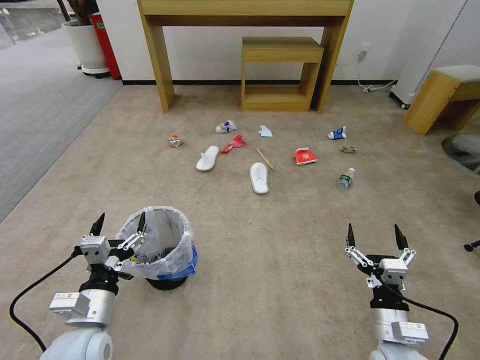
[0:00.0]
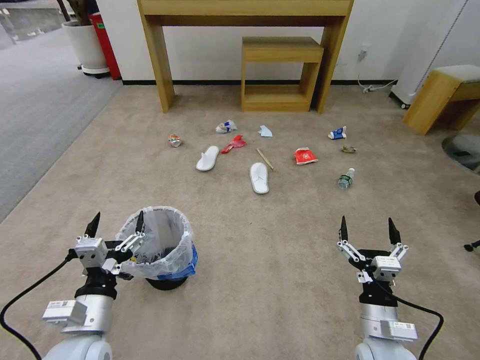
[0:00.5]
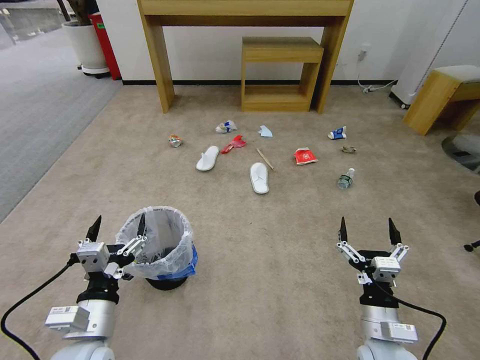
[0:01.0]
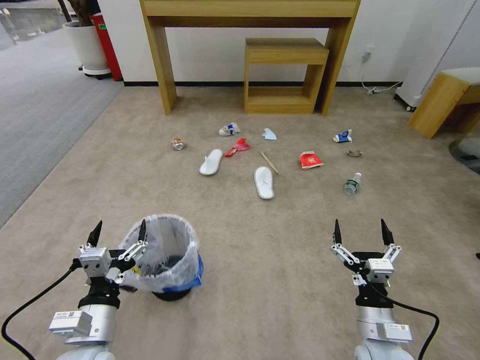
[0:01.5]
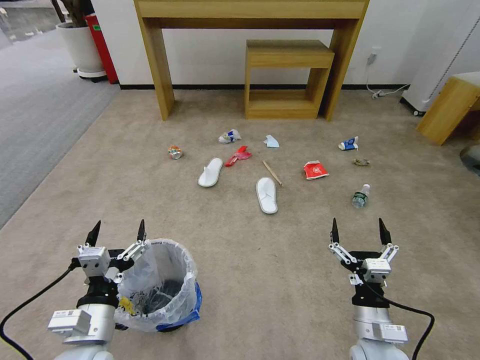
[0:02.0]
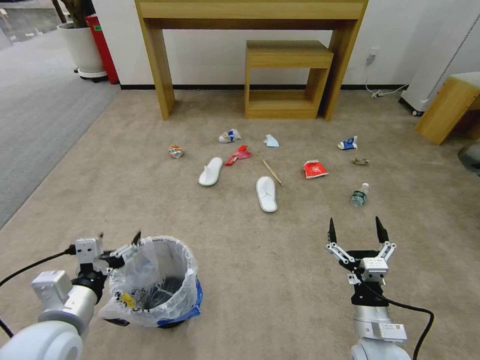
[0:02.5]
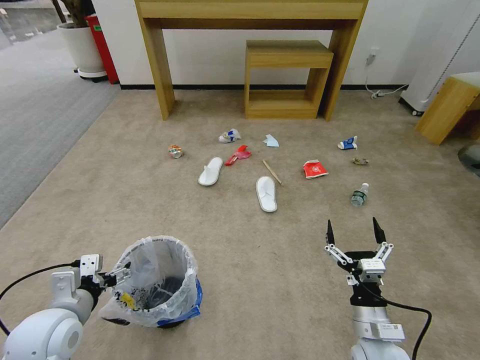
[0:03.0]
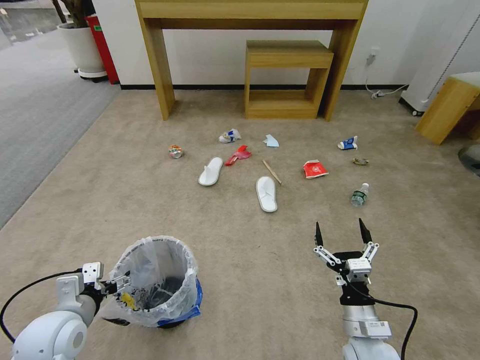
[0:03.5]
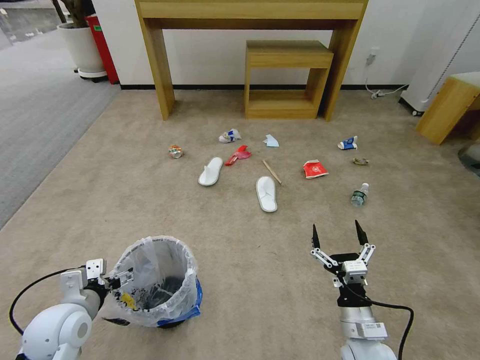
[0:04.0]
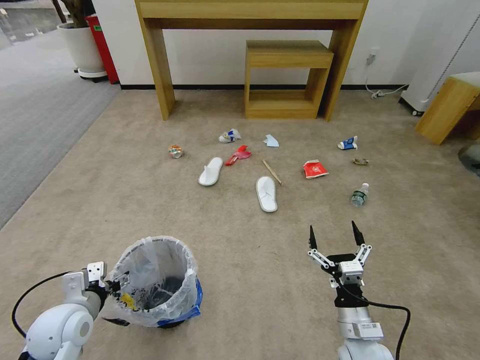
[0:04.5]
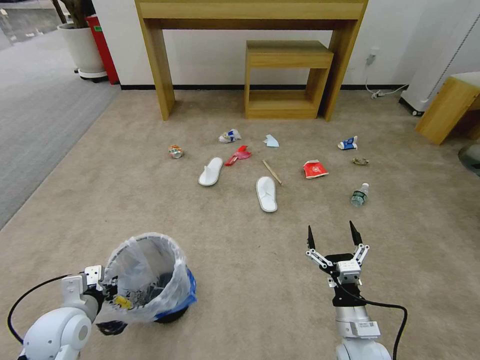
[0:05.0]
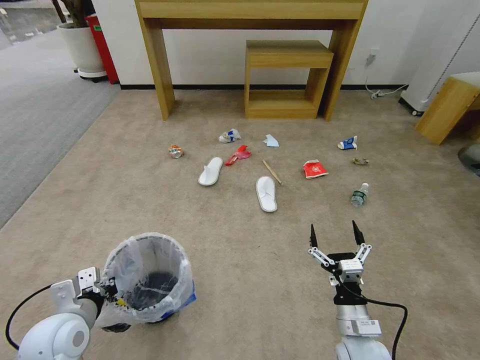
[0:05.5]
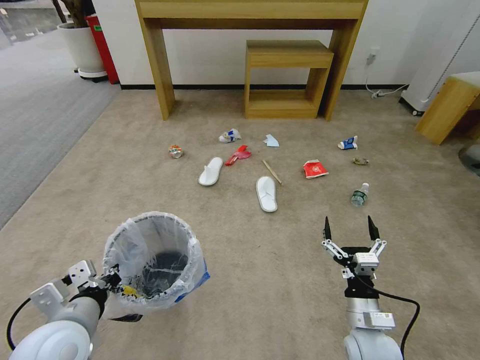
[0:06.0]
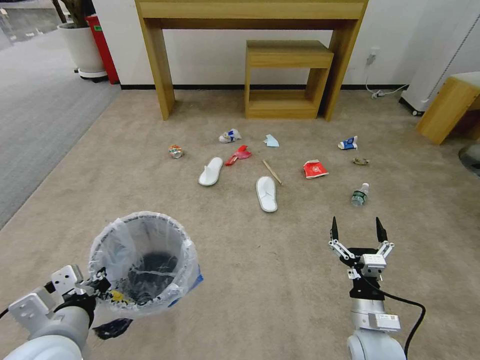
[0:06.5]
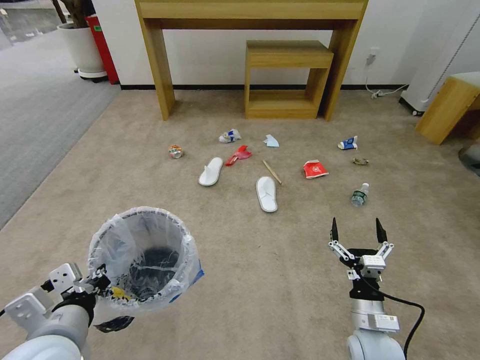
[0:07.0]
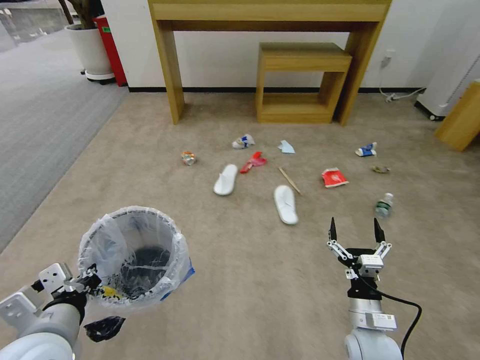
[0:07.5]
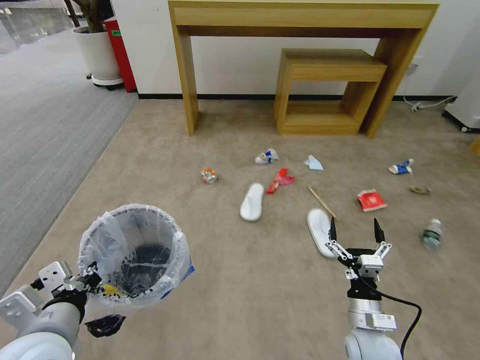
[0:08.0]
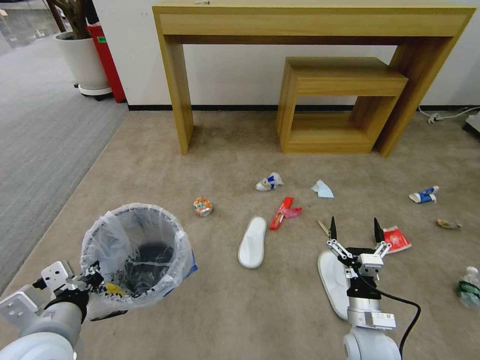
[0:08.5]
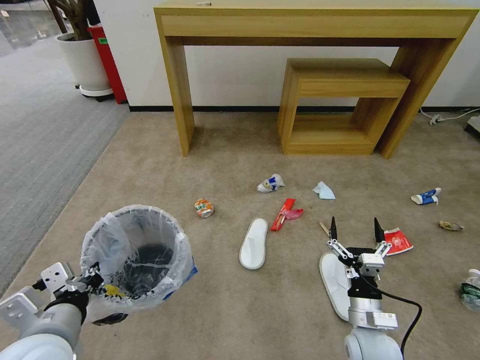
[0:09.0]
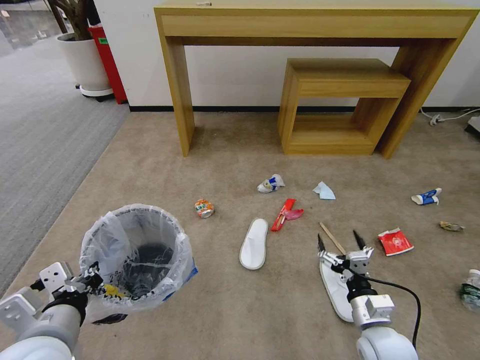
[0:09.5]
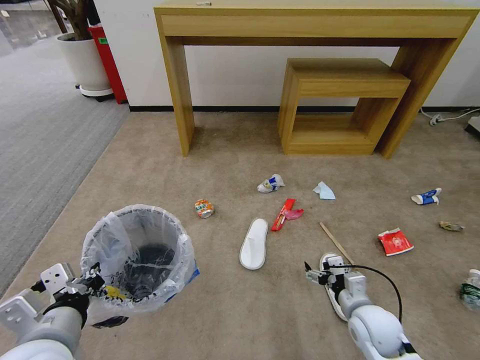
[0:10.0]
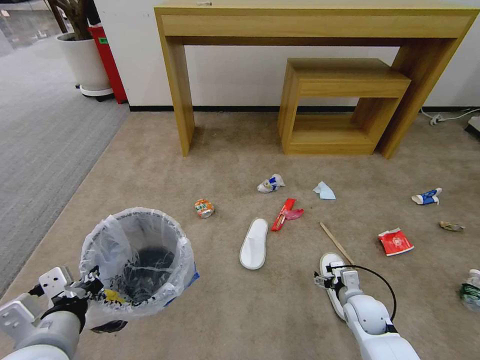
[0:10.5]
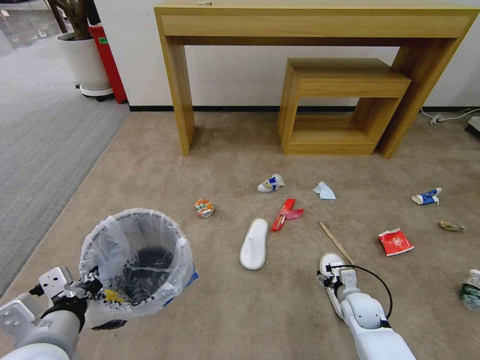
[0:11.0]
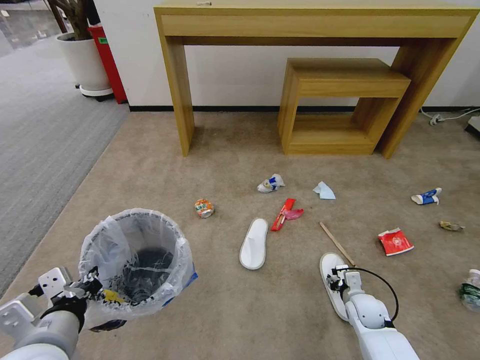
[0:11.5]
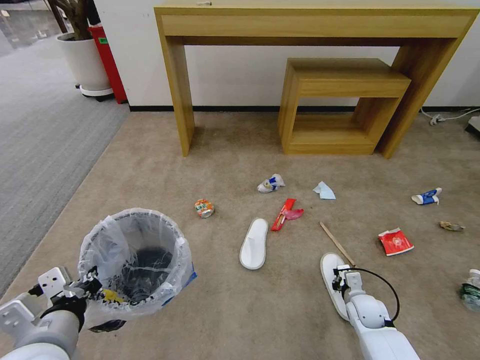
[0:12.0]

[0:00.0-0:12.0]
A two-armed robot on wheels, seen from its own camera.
Task of the whole recording: Pick up the trash bin and place the garbage on the floor into it.
0:02.0 to 0:04.0: The left gripper shifts some 10 cm to the left and forward.
0:04.0 to 0:06.0: The left gripper travels upward and to the right by approximately 10 cm, and closes its fingers.
0:08.0 to 0:10.0: The right gripper shifts by approximately 5 cm.
0:10.0 to 0:12.0: The right gripper is displaced downward, forward and to the right by some 15 cm, and closes.

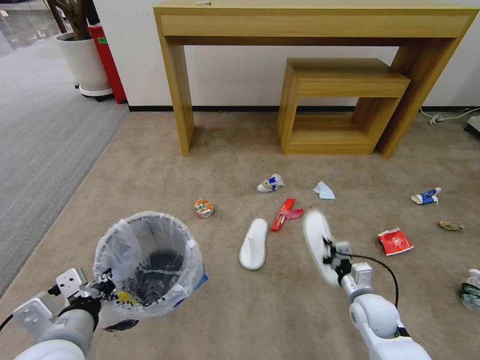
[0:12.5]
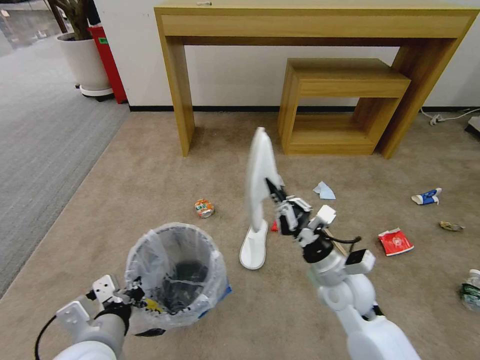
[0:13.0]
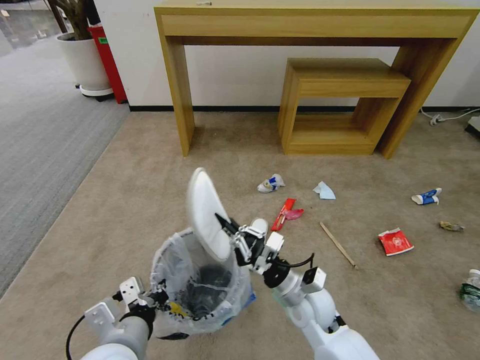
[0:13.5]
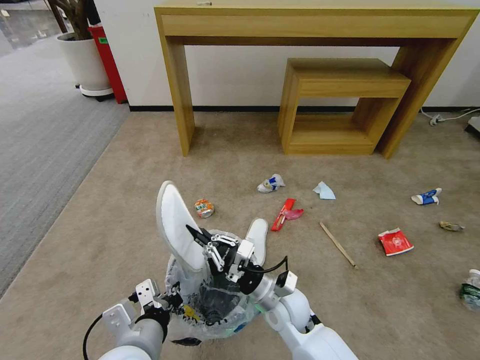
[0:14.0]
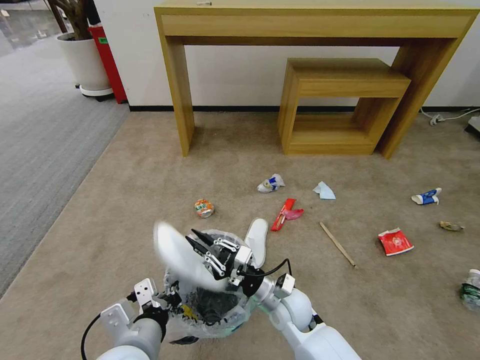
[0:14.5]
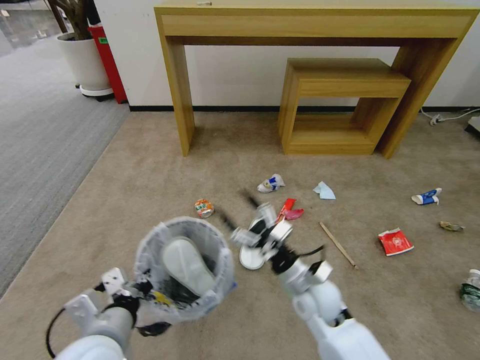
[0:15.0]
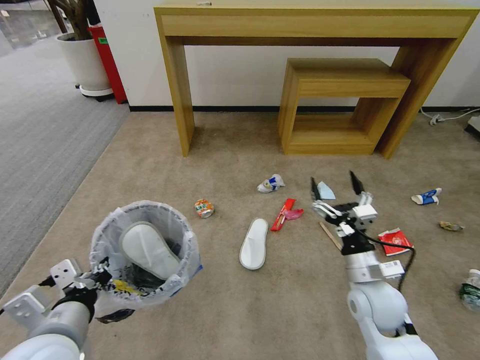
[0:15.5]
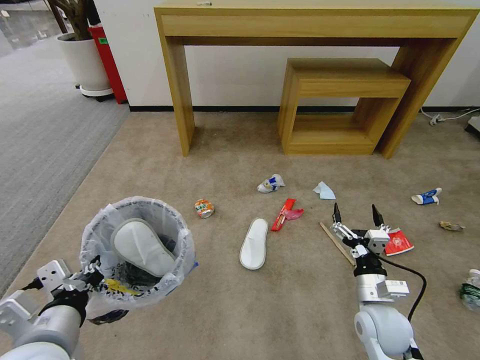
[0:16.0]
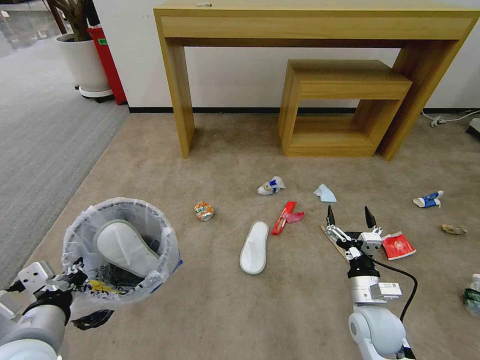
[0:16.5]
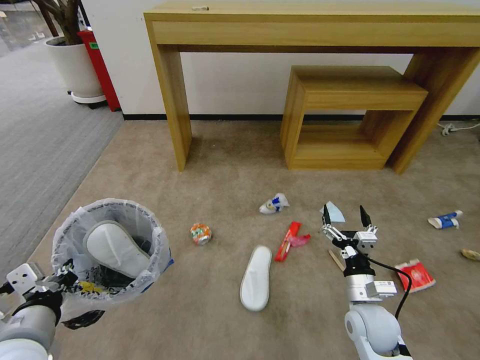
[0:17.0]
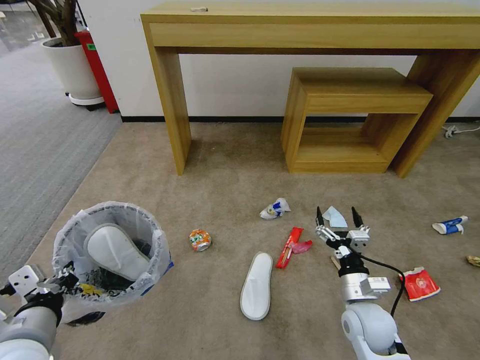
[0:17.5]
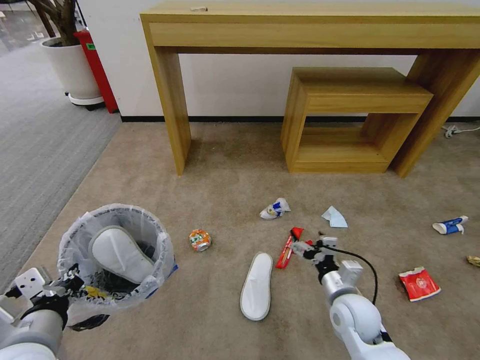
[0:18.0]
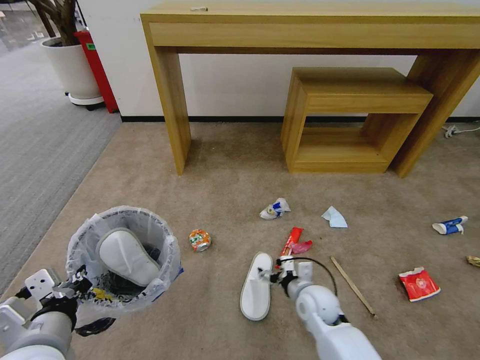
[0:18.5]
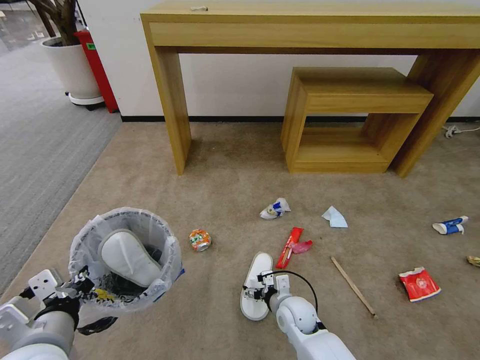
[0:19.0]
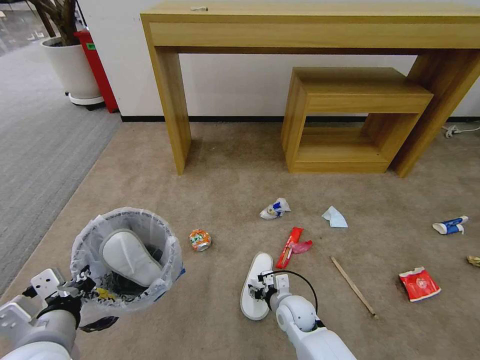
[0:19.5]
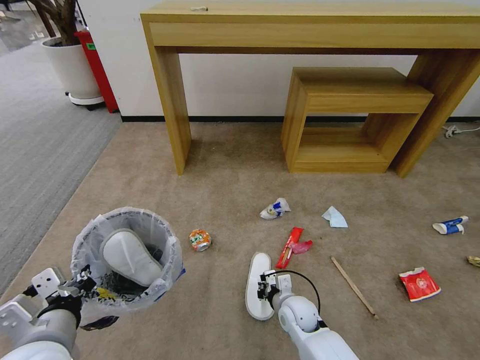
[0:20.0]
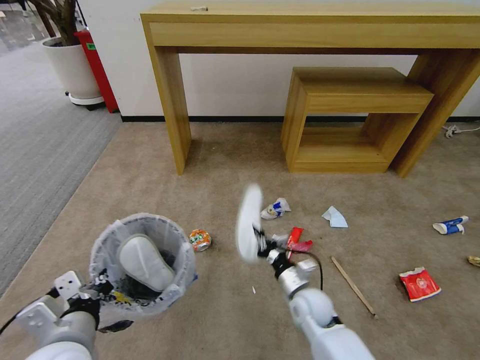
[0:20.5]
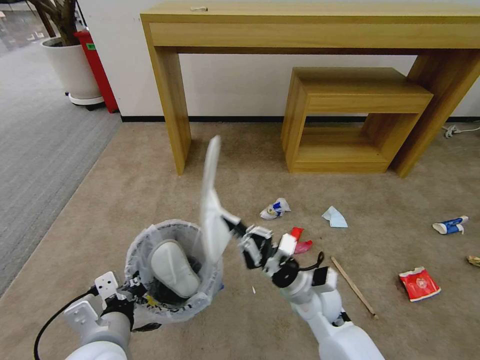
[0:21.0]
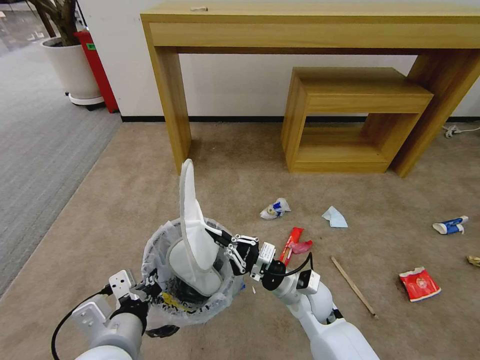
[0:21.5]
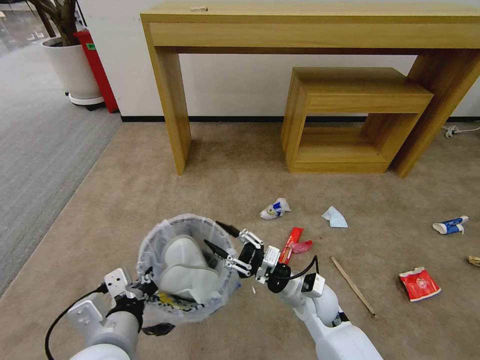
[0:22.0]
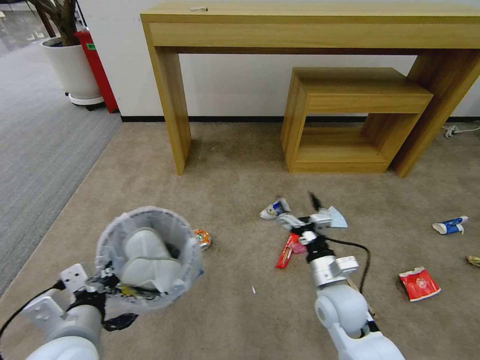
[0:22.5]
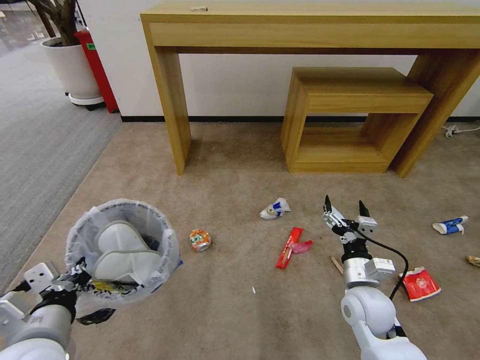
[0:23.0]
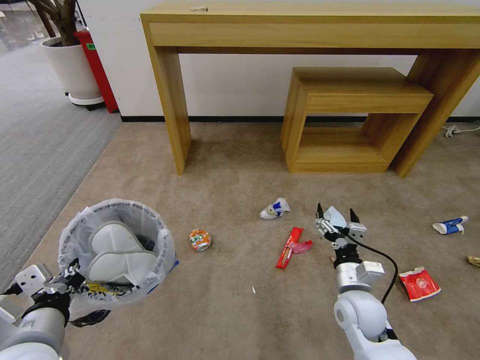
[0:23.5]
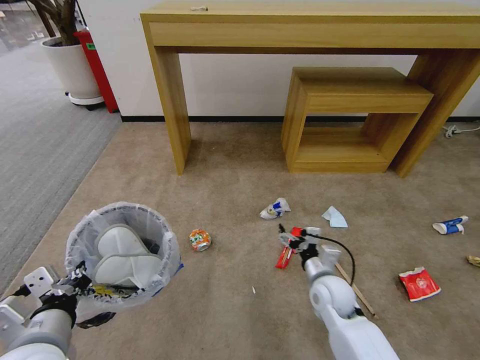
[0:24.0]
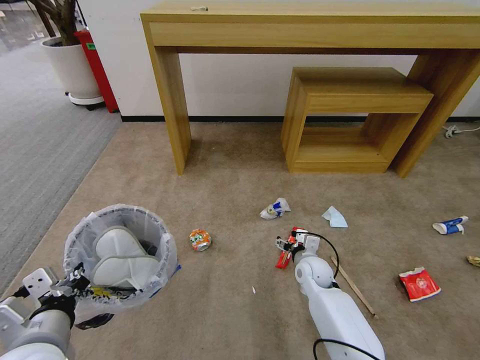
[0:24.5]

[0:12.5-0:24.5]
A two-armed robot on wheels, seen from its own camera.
Task of the whole recording: Pick up the trash bin and place the garbage on the floor into it.
0:12.5 to 0:14.5: The right gripper travels to the left by about 20 cm. The left gripper moves to the right, some 10 cm.
0:14.5 to 0:16.5: The right gripper goes roughly 15 cm to the right, and opens up; the left gripper goes some 15 cm to the left and upward.
0:16.5 to 0:18.5: The right gripper moves to the left, forward and downward, approximately 15 cm.
0:18.5 to 0:20.5: The right gripper closes its fingers.
0:20.5 to 0:22.5: The right gripper goes roughly 10 cm upward, and opens up.
0:22.5 to 0:24.5: The right gripper travels forward and downward by about 15 cm.

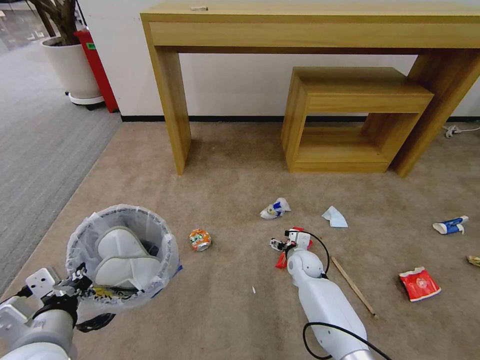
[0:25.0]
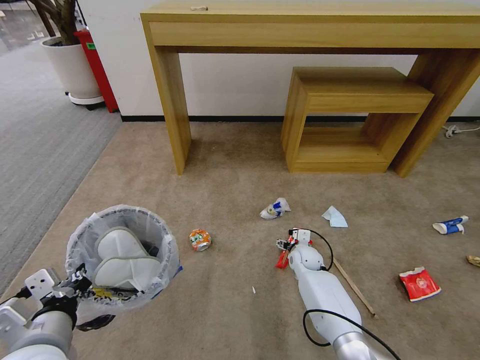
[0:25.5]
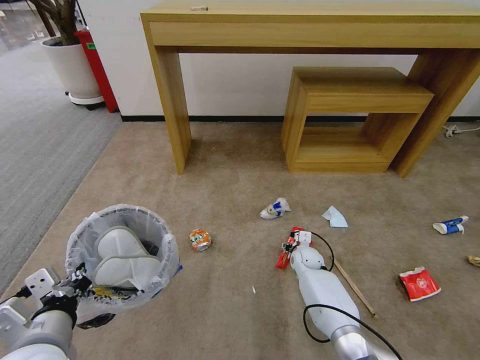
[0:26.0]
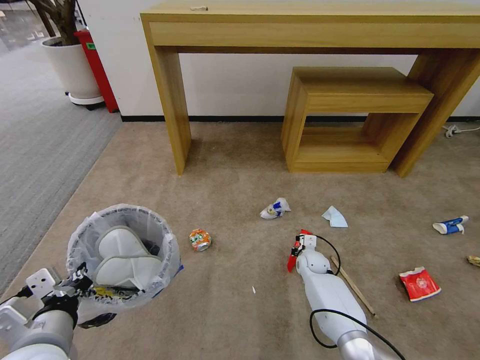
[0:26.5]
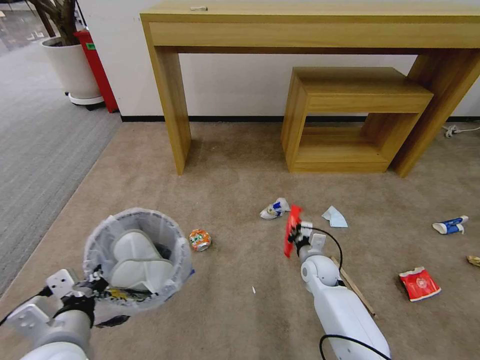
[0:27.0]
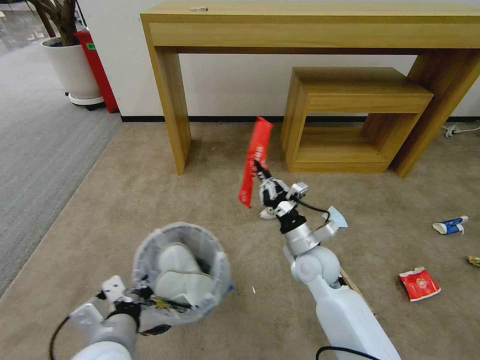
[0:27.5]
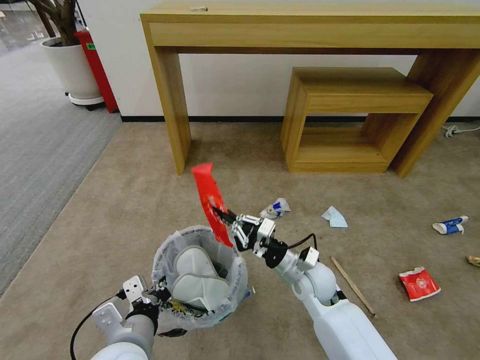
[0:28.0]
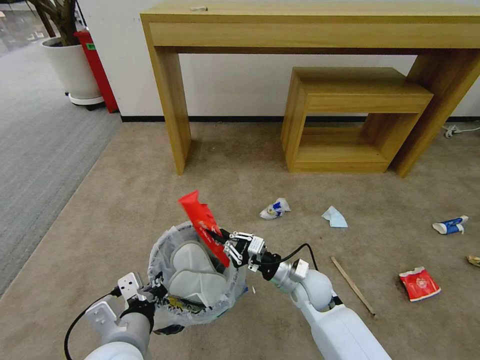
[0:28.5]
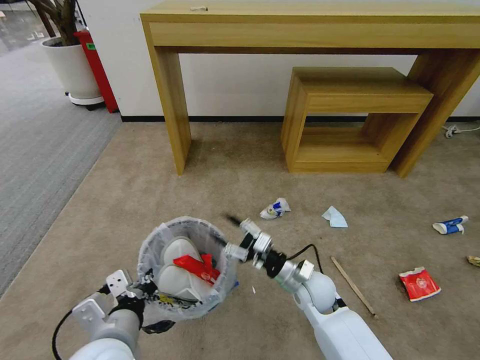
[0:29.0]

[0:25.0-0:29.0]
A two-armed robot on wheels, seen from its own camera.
Task of the whole recording: Pick up the trash bin and place the garbage on the floor into it.
0:25.0 to 0:27.0: The right gripper shifts by about 5 cm, and closes.
0:27.0 to 0:29.0: The right gripper heads backward, upward and to the left, covering some 10 cm, and opens up, while the left gripper moves to the right, some 5 cm.
